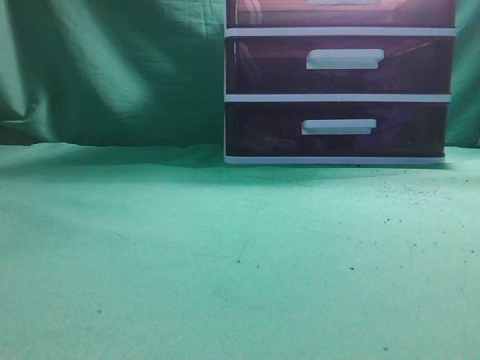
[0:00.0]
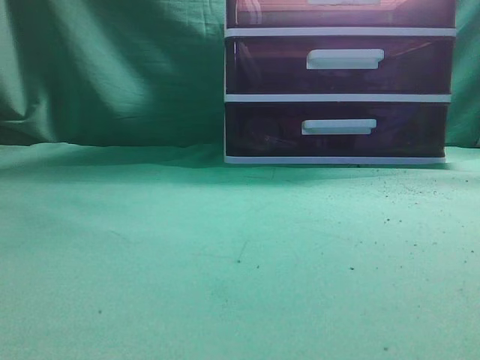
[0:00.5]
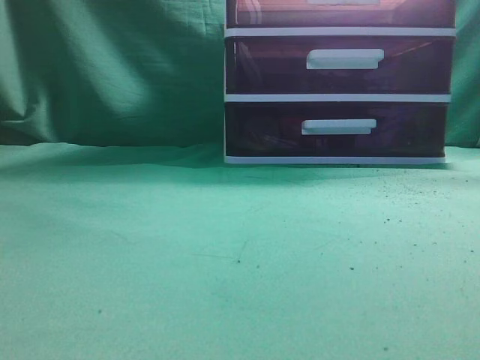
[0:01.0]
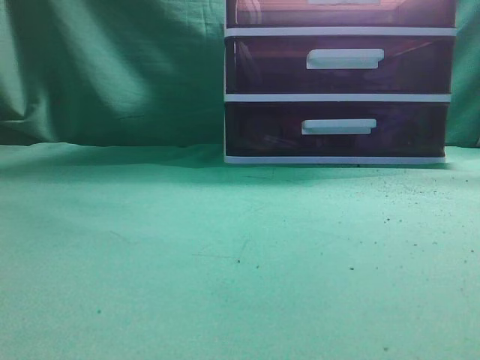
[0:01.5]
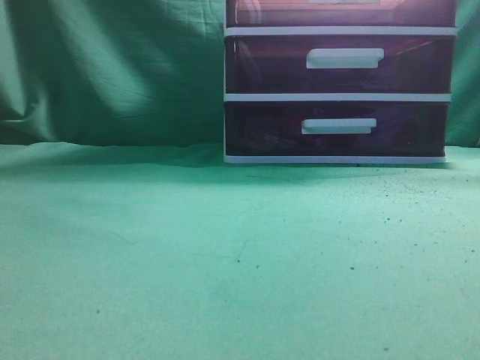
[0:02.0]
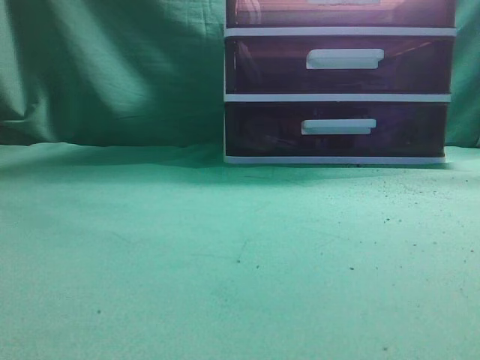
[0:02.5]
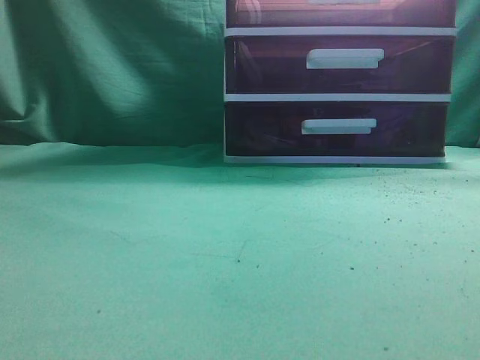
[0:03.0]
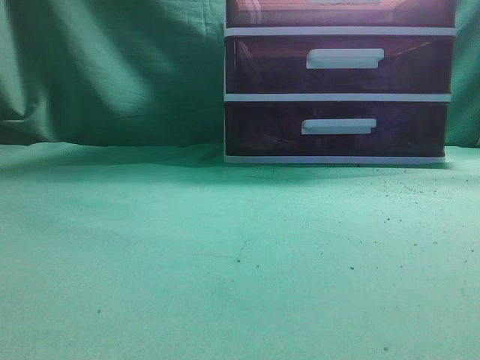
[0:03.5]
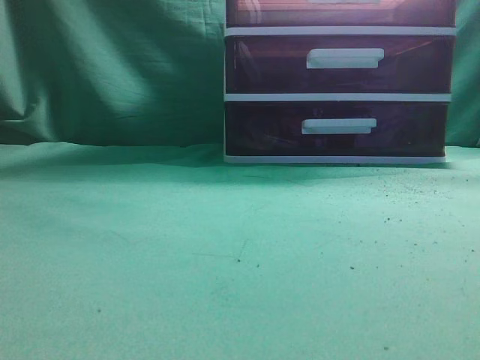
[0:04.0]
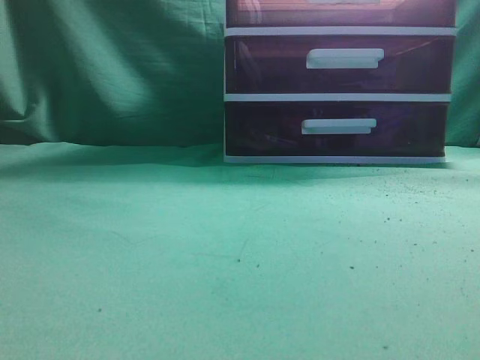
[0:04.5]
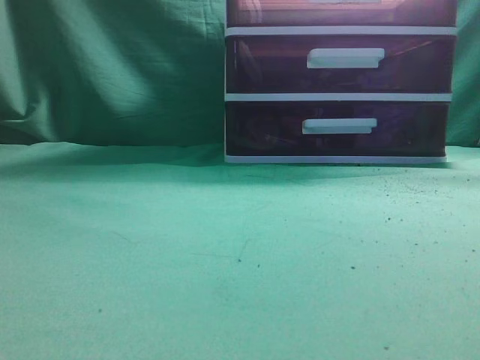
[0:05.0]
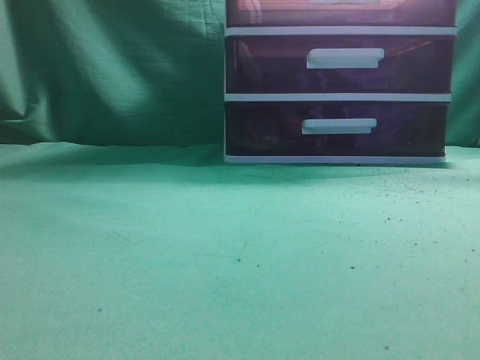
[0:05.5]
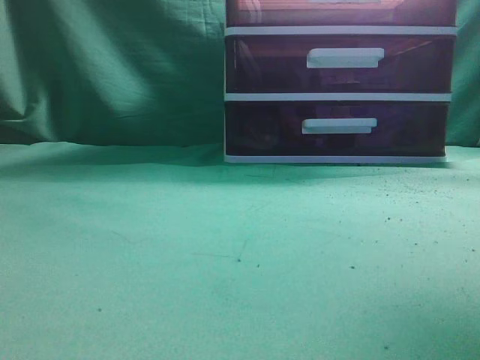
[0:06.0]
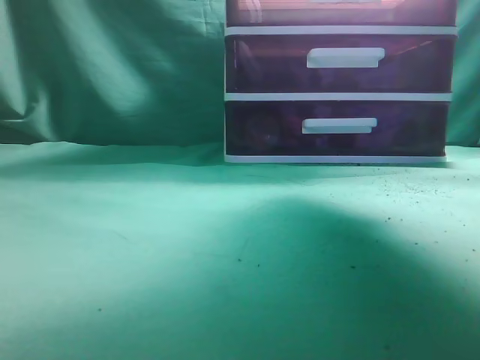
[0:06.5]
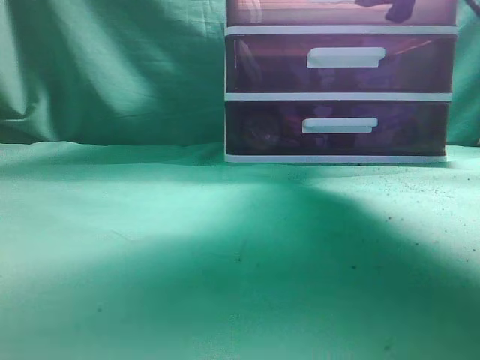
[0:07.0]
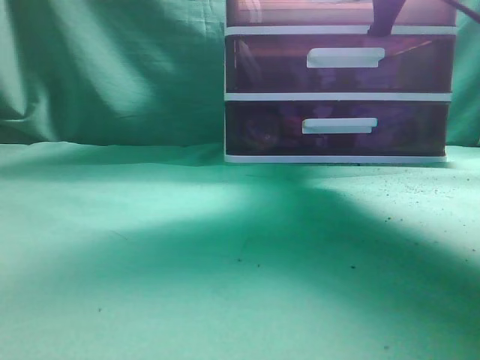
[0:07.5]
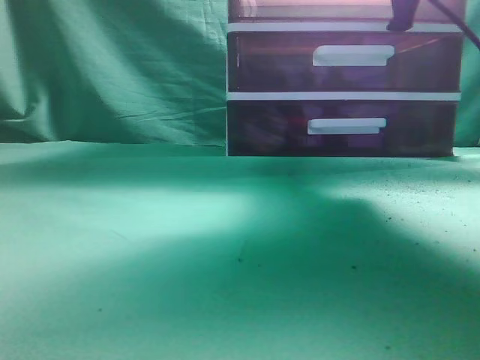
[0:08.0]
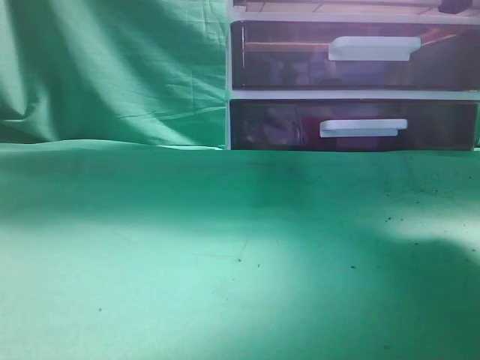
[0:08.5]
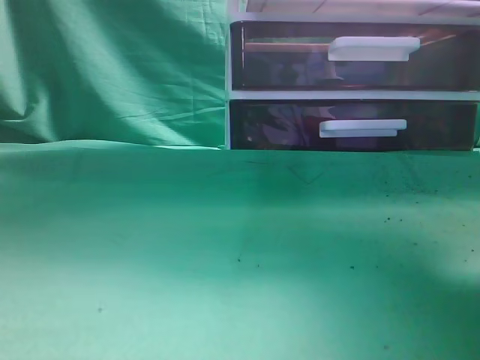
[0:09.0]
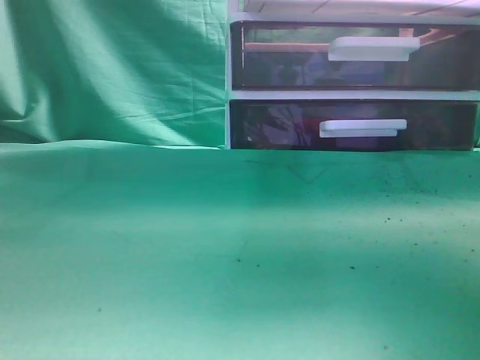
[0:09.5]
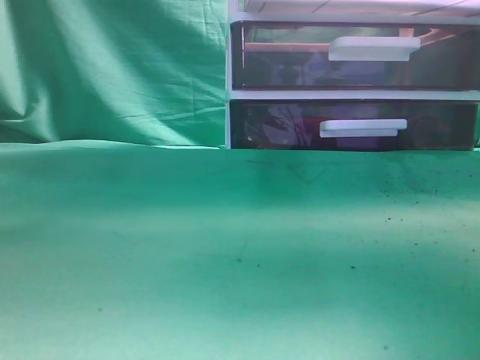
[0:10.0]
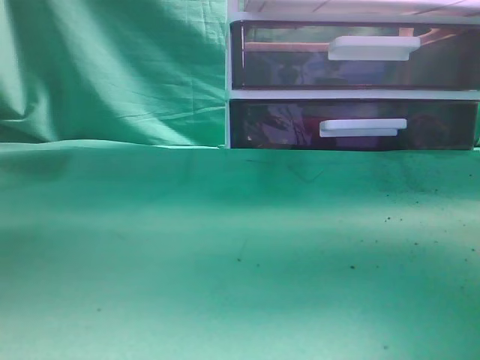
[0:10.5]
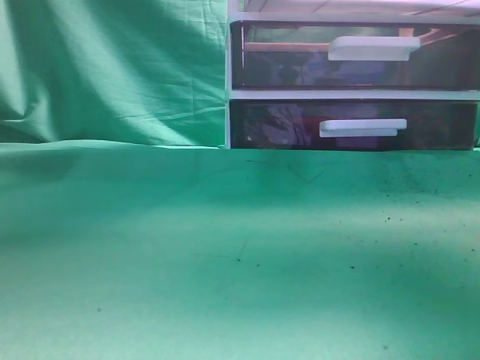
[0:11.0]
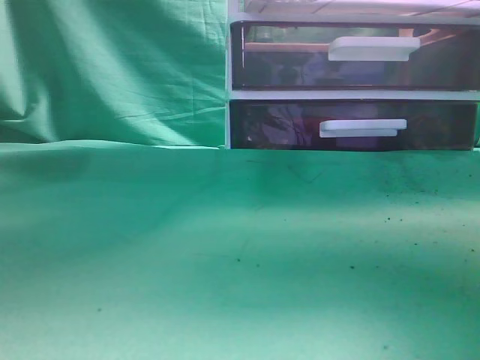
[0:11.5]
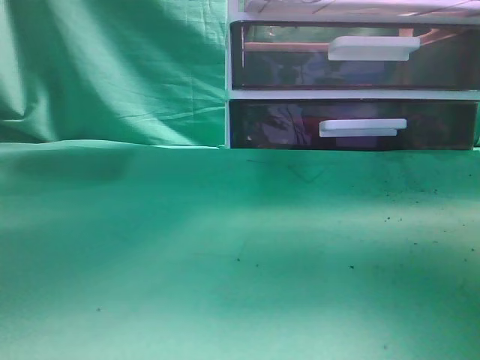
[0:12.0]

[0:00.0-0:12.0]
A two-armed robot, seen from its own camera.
Task of the whole recording: place the water bottle into the drawer.
Step, 0:00.0 to 0:09.5: Open the drawer.
0:04.0 to 0:06.0: The right gripper travels forward and upward by about 30 cm, and opens its fingers.
0:06.0 to 0:08.0: The right gripper moves downward and forward, about 10 cm, and opens, then closes once more.
0:08.0 to 0:10.0: The right gripper moves backward, approximately 10 cm, while the left gripper moves to the right and upward, approximately 15 cm.
0:10.0 to 0:12.0: The left gripper shifts approximately 20 cm to the right and downward.

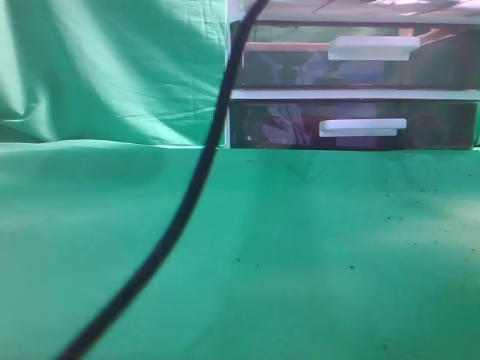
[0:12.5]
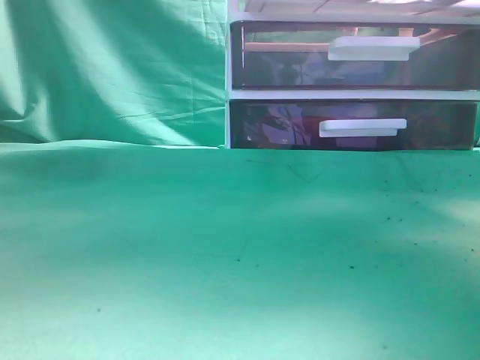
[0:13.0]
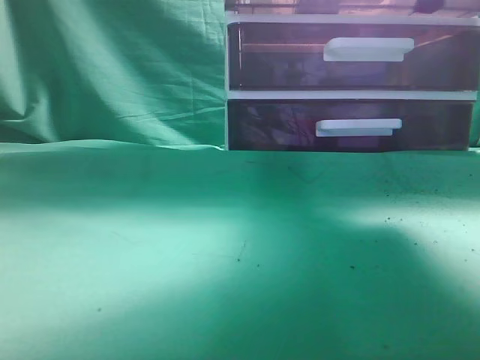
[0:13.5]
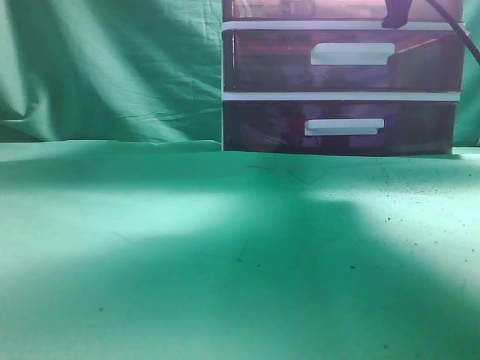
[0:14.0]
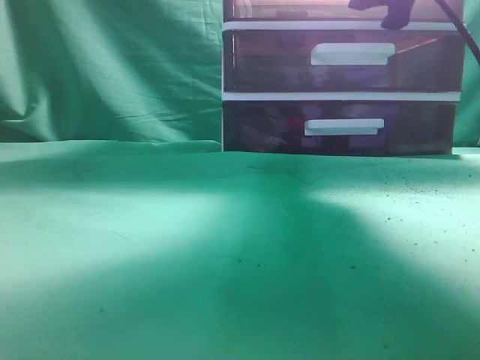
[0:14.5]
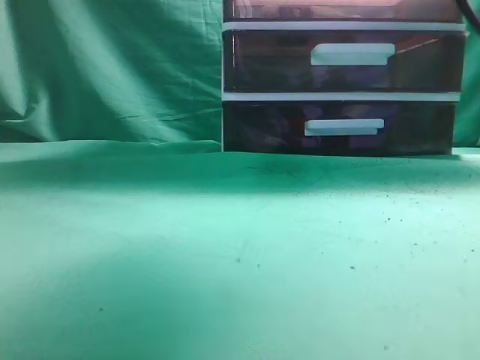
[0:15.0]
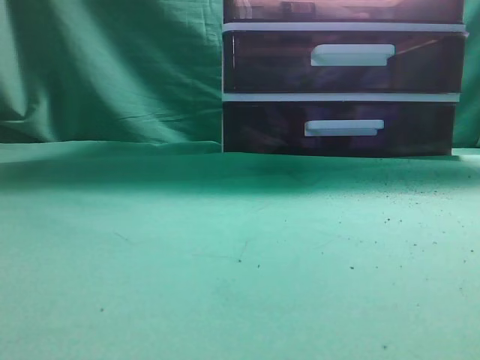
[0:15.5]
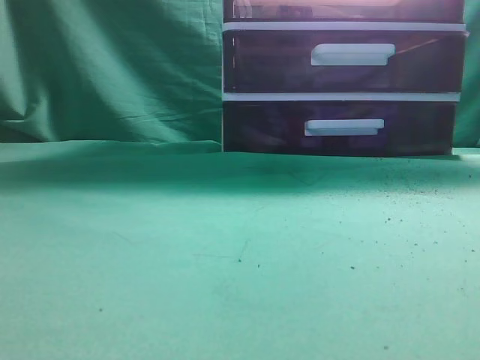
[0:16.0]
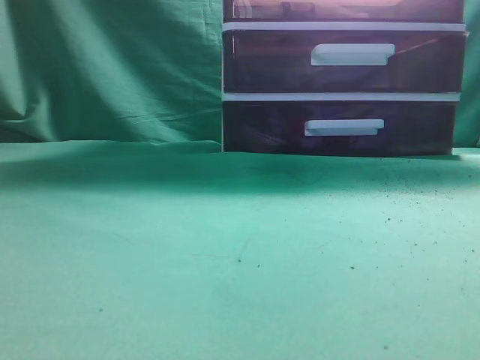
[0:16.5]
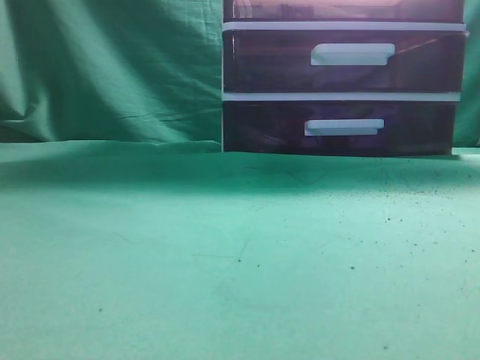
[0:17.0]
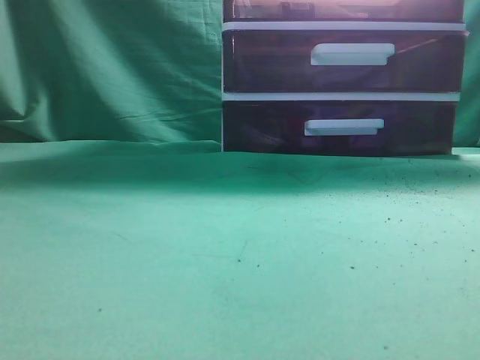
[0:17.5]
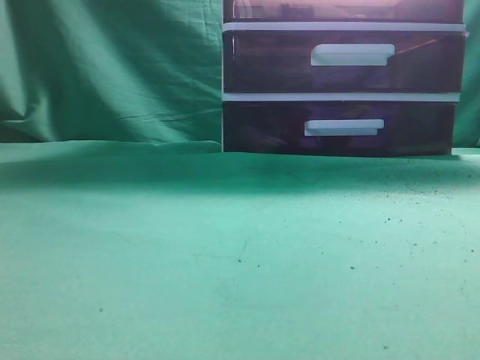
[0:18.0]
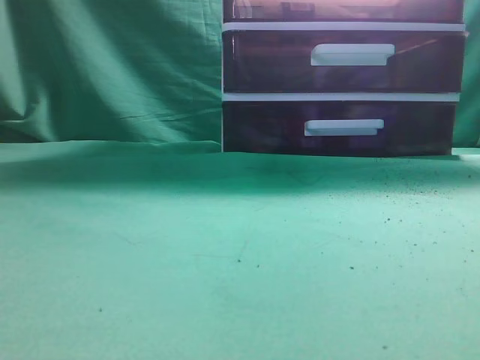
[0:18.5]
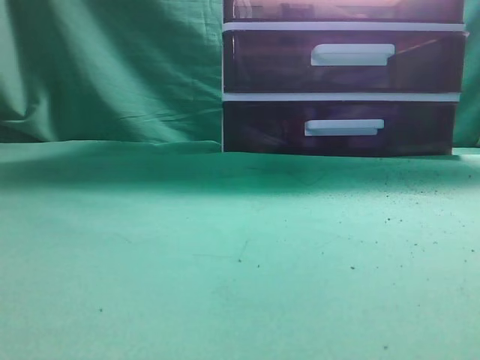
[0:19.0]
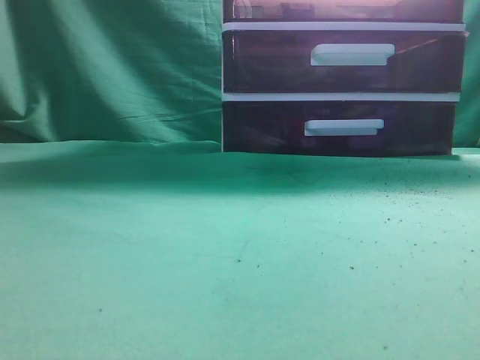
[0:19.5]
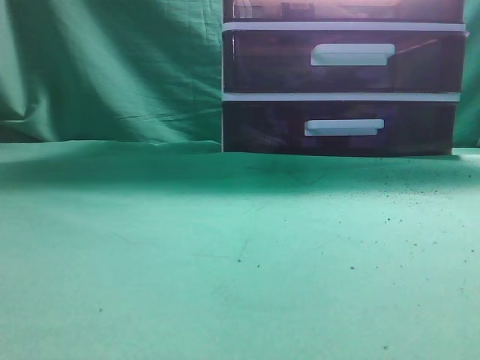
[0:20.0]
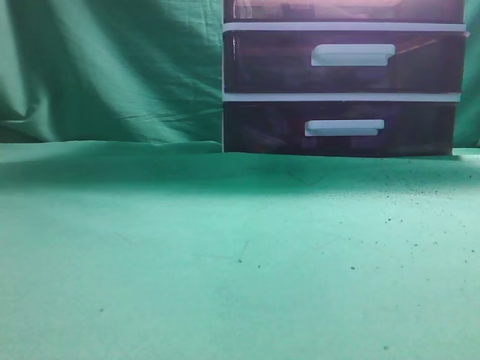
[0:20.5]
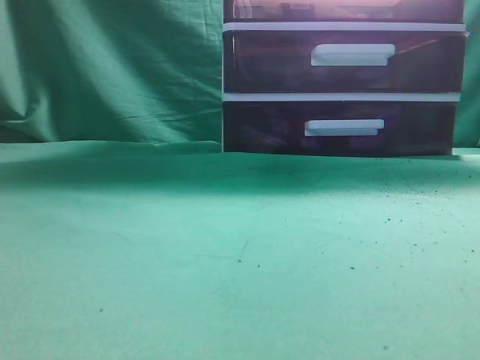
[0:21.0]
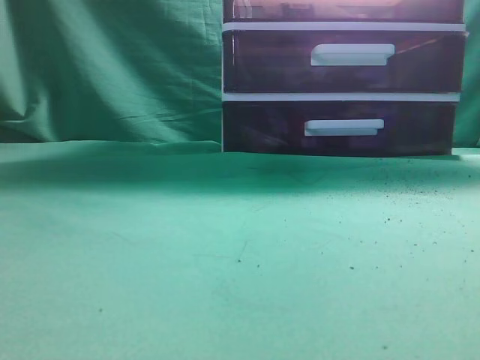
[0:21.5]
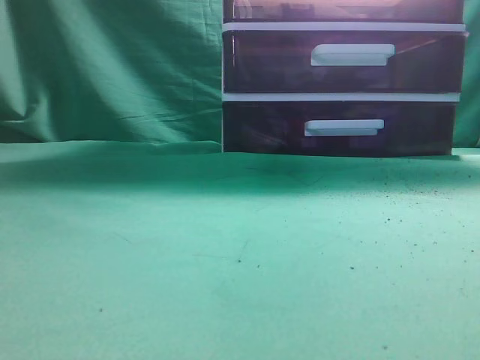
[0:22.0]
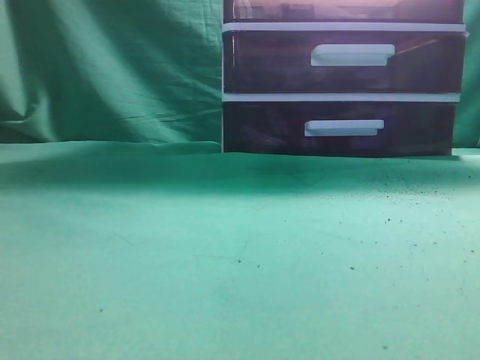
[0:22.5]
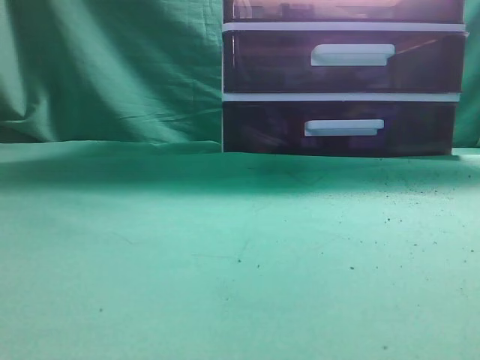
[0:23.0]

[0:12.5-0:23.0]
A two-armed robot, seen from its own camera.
Task of the whole recording: place the water bottle into the drawer.
Step, 0:13.5 to 0:14.5: Close the drawer.
0:12.5 to 0:14.5: The right gripper travels forward by approximately 10 cm, and opens; the left gripper shifts some 40 cm to the left and backward, and closes its fingers.
0:14.5 to 0:16.5: The right gripper shifts about 30 cm backward and upward, and closes its fingers, while the left gripper shifts approximately 20 cm downward.
